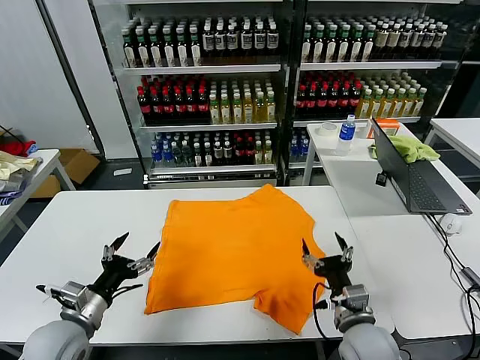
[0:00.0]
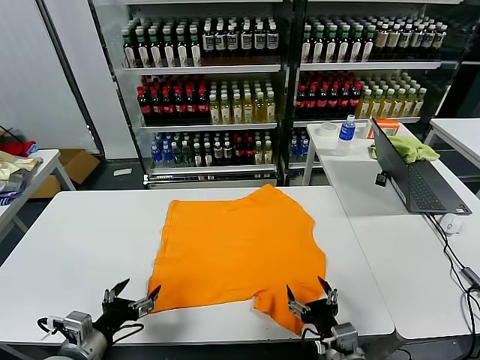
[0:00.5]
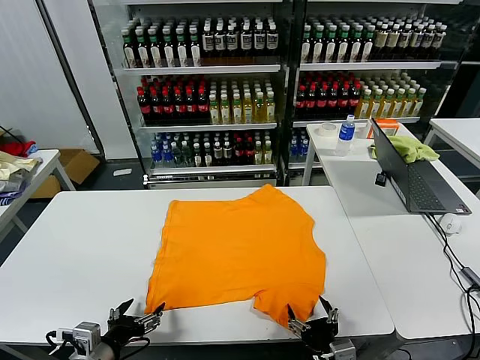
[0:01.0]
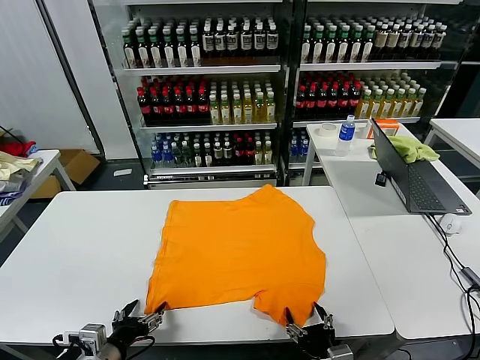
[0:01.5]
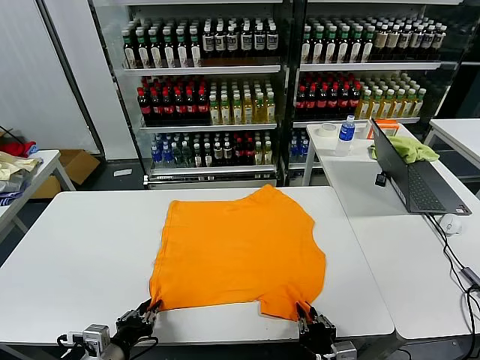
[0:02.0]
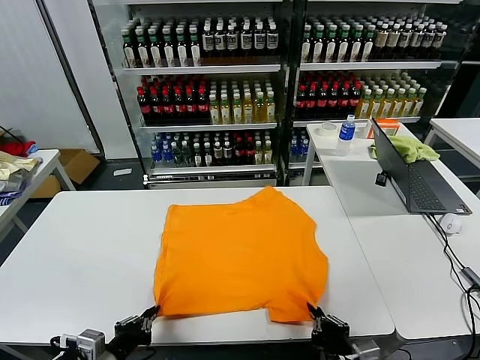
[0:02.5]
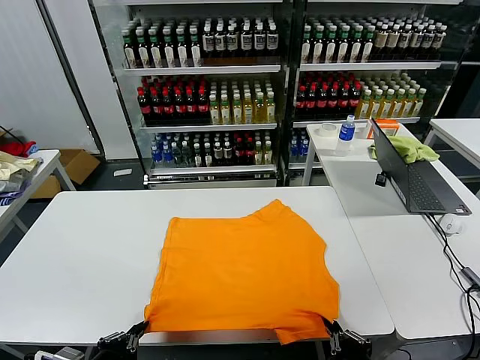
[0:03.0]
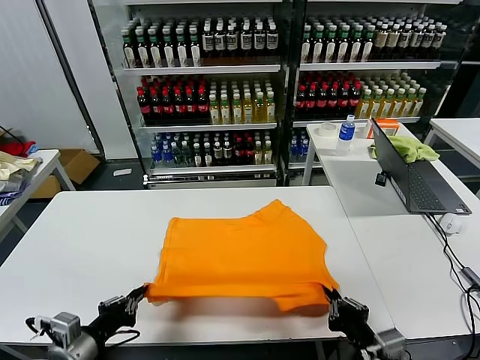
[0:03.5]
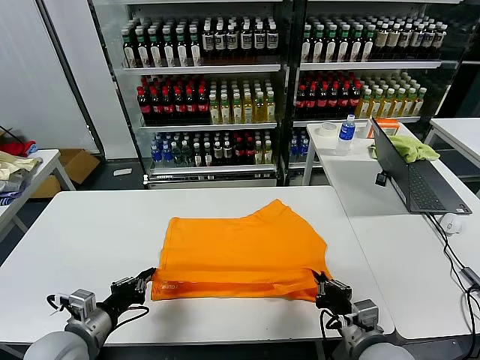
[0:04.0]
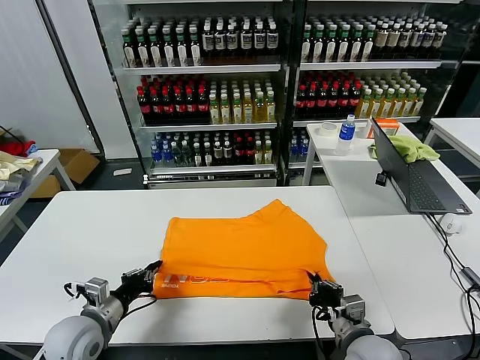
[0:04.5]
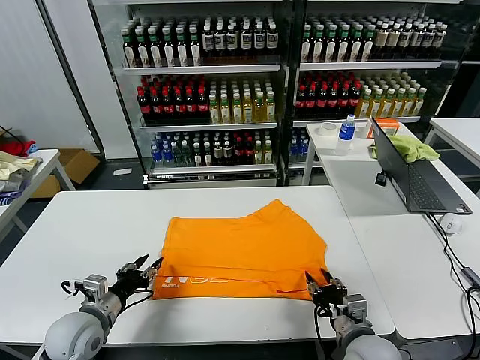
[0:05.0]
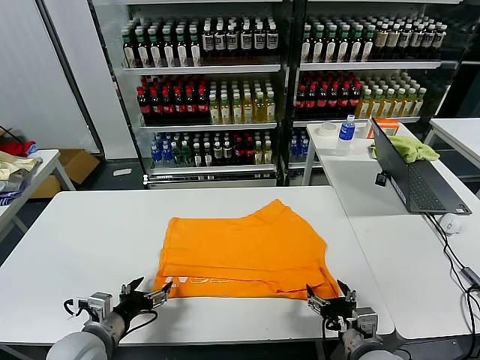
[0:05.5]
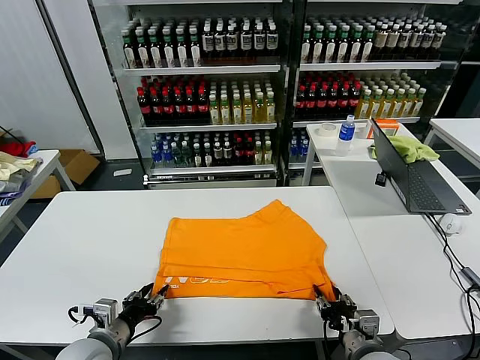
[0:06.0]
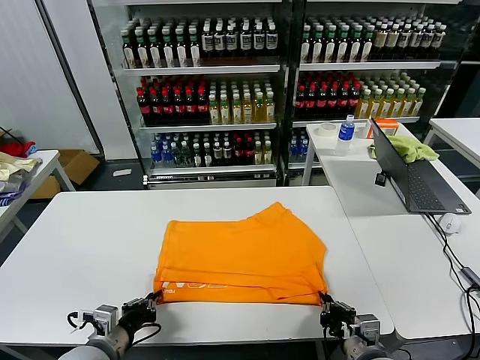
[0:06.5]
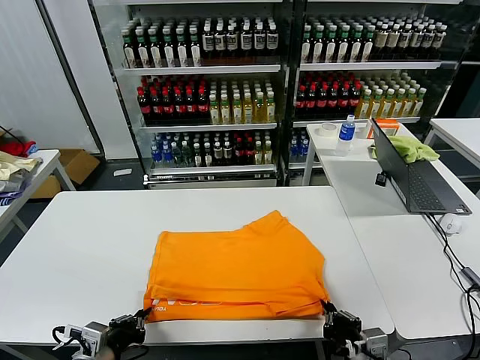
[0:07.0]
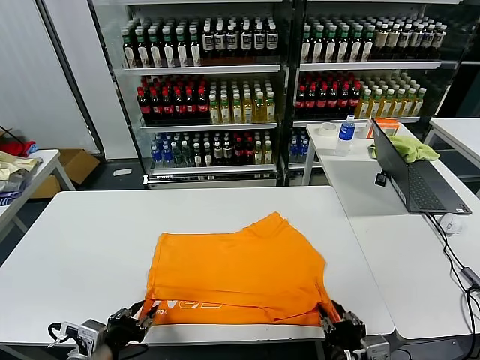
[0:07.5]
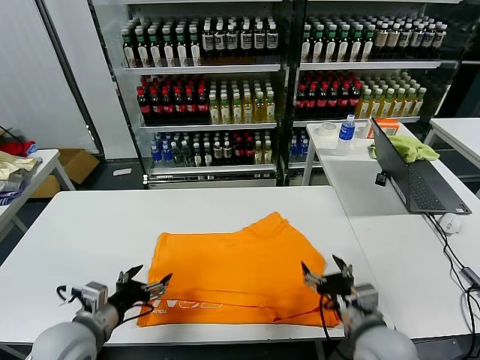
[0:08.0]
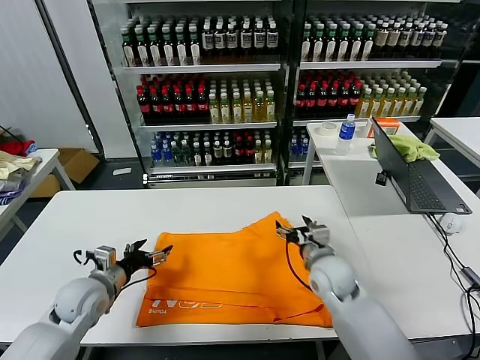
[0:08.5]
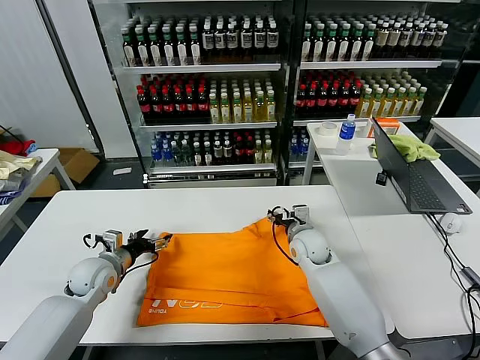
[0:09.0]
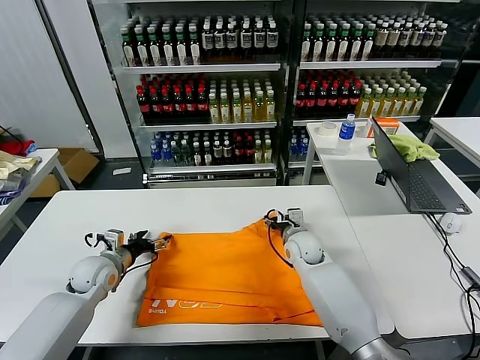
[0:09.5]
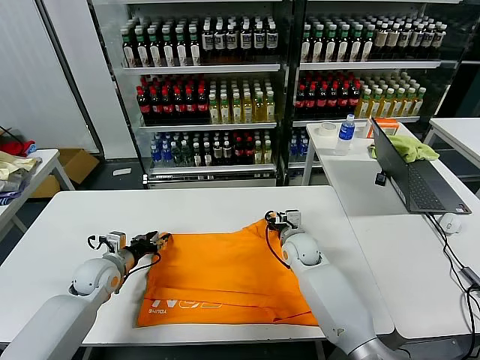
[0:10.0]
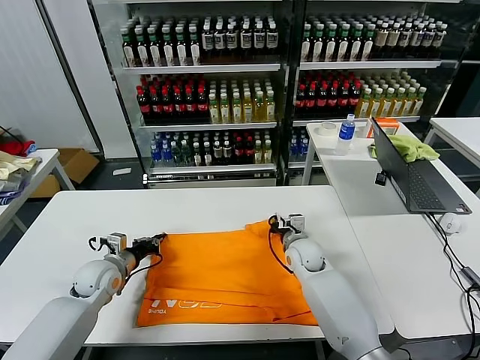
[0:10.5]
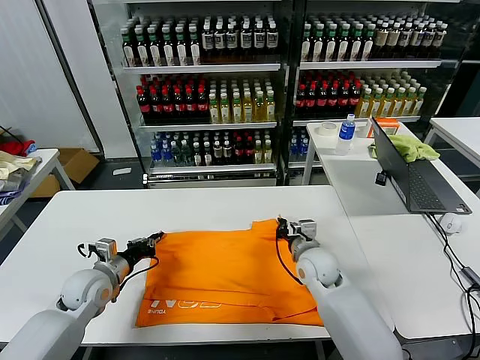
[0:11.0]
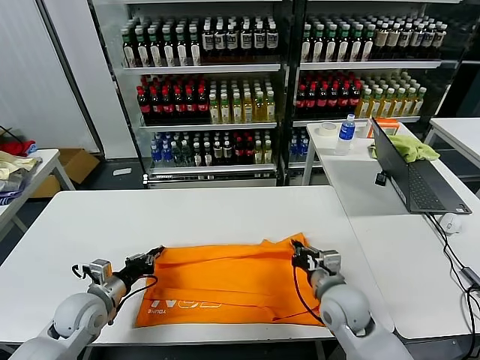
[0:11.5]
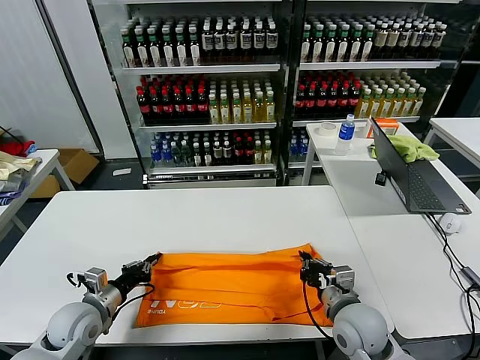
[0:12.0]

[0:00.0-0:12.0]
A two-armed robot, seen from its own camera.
Task of the whole recording: fold and organize the clothes.
Step, 0:00.0 to 0:02.0: use both grippers simultaneously to clamp the lower edge of the clothing fabric.
Step, 0:02.5 to 0:04.5: use both grippers to drag the lower edge of the fabric forward and fold it over the upper edge.
Step, 0:05.5 to 0:07.5: Drag the clothes downward with both gripper.
Step, 0:08.0 to 0:10.0: use both grippers simultaneously to clamp the upper edge of the clothing fabric.
0:02.0 to 0:04.0: The left gripper is displaced forward by roughly 5 cm. The right gripper travels forward and upward by some 10 cm.
0:04.0 to 0:06.0: The right gripper opens. Meanwhile the left gripper opens up.
0:06.0 to 0:08.0: Both grippers travel together upward, approximately 5 cm. The right gripper goes backward and returns, approximately 5 cm each way, and opens its fingers; the left gripper opens its fingers.
0:08.0 to 0:10.0: The right gripper shifts roughly 25 cm forward, and closes; the left gripper moves forward, roughly 20 cm, and closes.
0:10.0 to 0:12.0: The left gripper is displaced backward by approximately 10 cm, and closes its fingers; the right gripper is displaced backward by roughly 20 cm, and closes up.

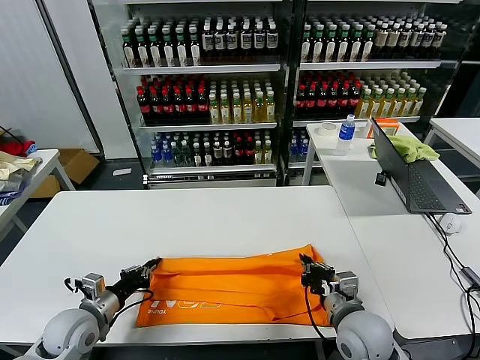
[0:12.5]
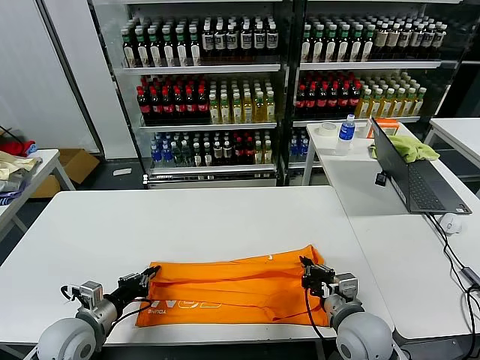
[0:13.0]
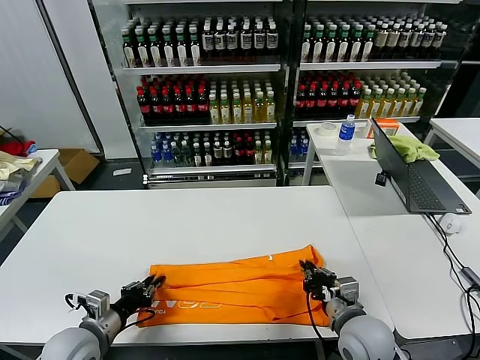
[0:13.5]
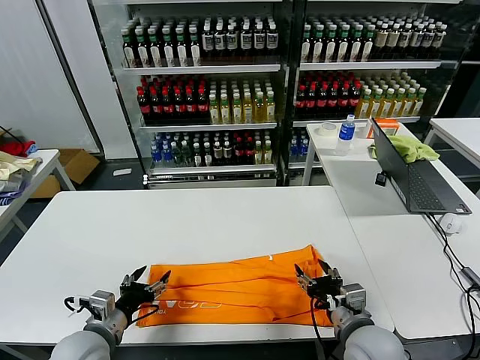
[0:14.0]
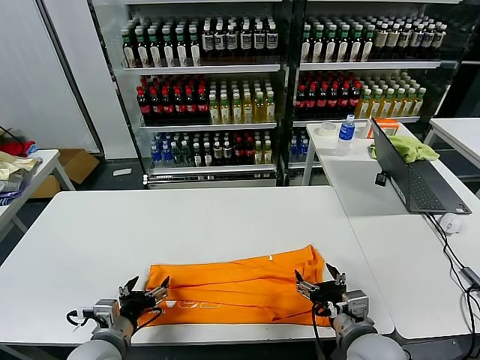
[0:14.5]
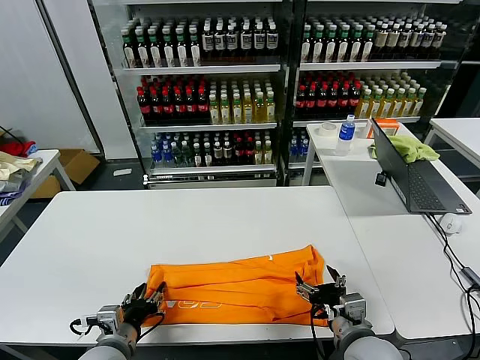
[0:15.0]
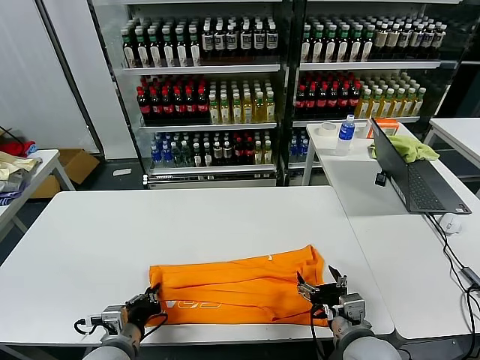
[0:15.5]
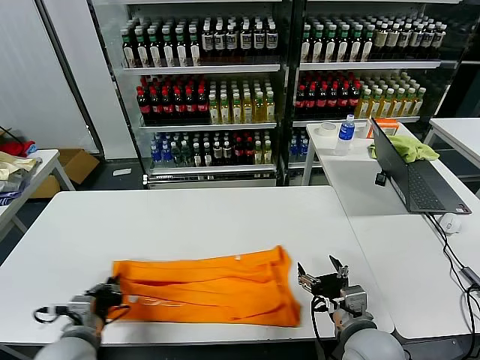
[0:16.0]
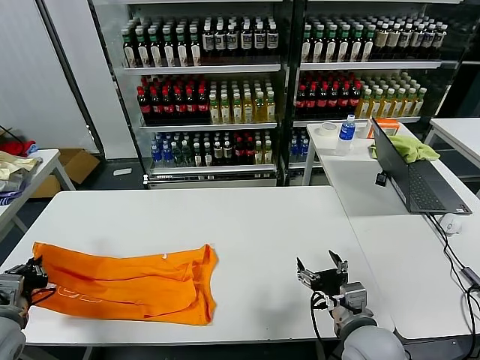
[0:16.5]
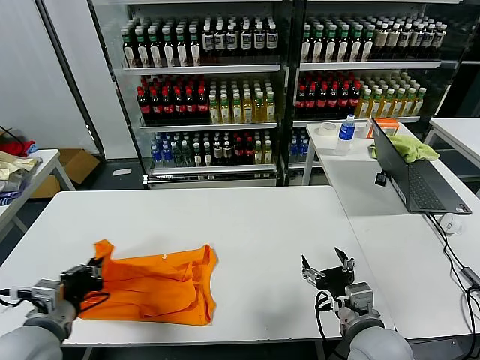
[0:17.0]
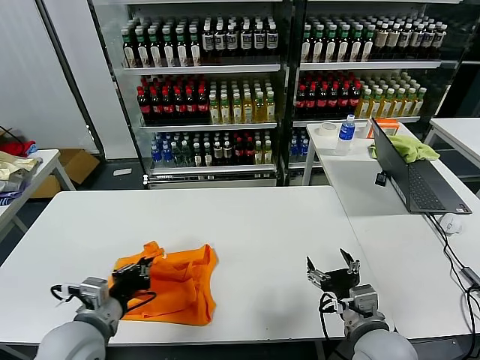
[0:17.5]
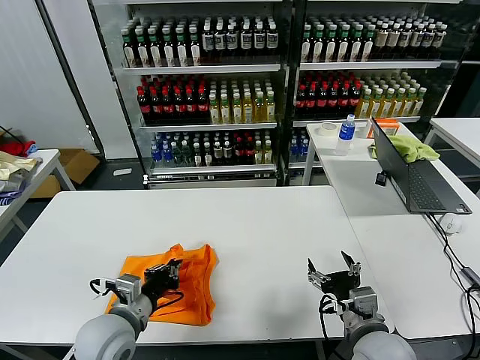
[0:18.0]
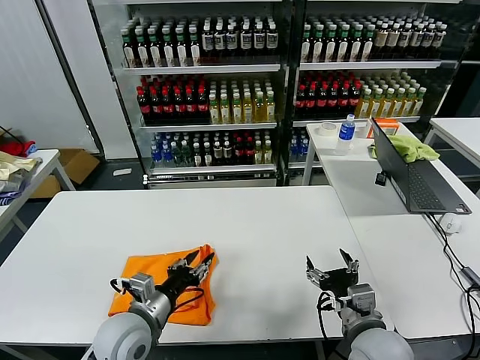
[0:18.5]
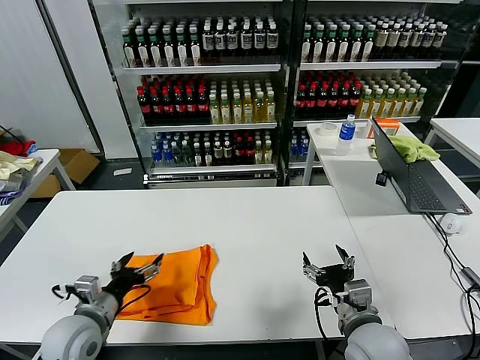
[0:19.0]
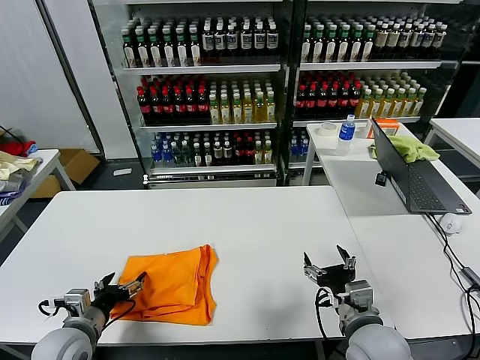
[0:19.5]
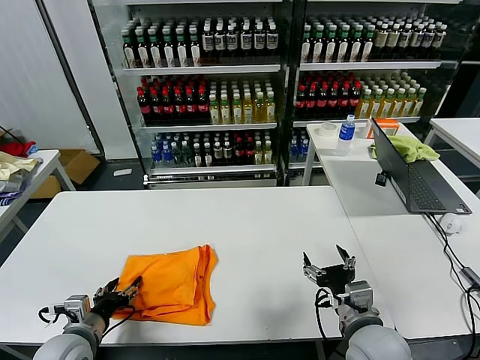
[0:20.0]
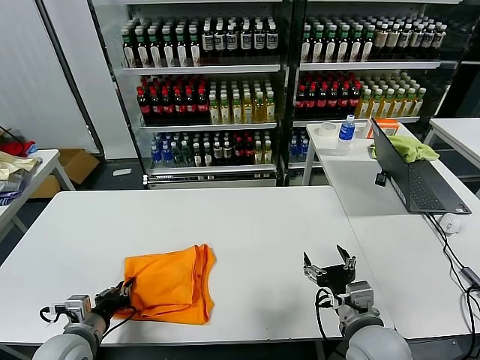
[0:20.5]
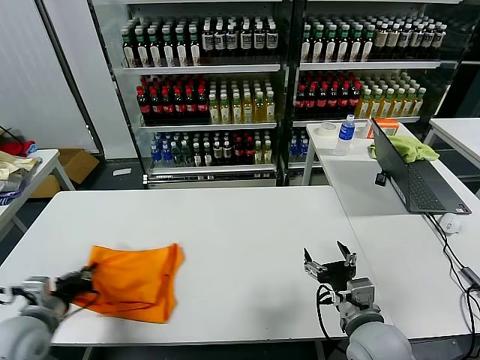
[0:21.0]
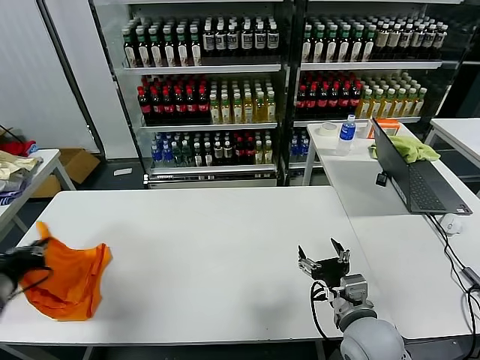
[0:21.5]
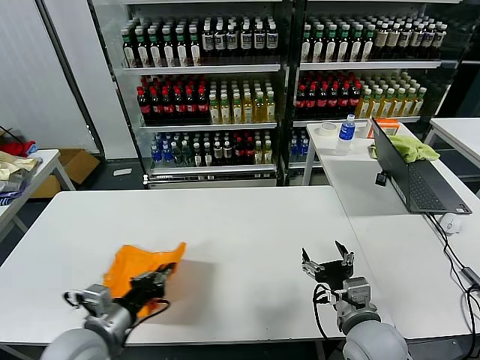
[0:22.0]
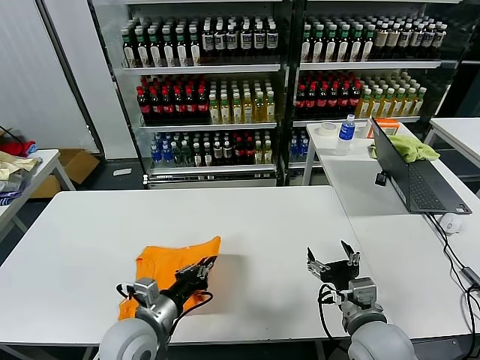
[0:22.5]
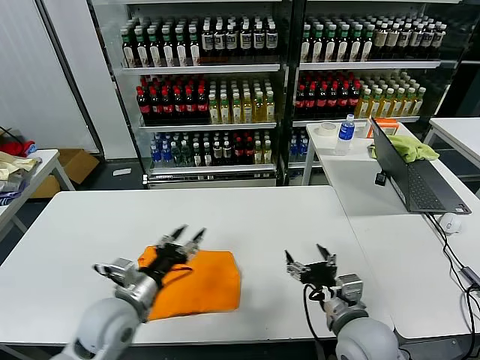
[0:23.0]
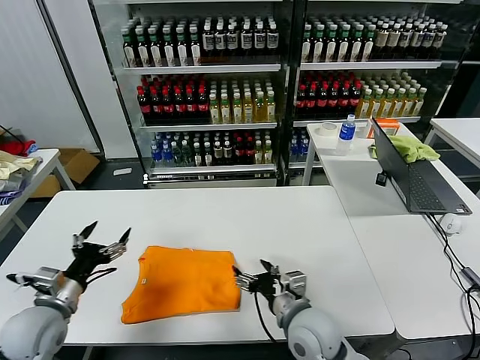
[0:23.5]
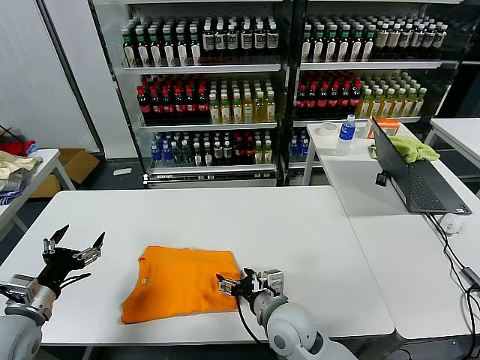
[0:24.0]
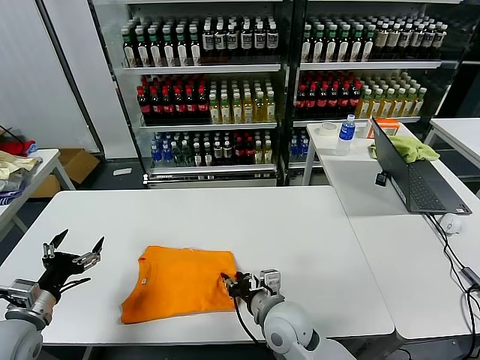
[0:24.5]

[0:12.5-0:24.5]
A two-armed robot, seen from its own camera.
Task of the whole recording: fold and organize the clothes.
Step, 0:14.0 to 0:15.5: use the left gripper to clamp the left edge of the fabric.
Step, 0:16.0 to 0:18.0: use the left gripper to drag the left edge of the fabric to the left and folds it over the right edge.
Step, 0:18.5 to 0:22.5: Flip the folded clothes over with left gripper.
0:12.5 to 0:14.5: The left gripper goes approximately 10 cm to the right and backward, and opens its fingers. Meanwhile the right gripper opens up.
0:14.5 to 0:16.5: The left gripper goes about 20 cm to the left and upward, and closes up.
0:16.5 to 0:18.5: The left gripper shifts approximately 20 cm to the right, and opens its fingers.
0:18.5 to 0:20.5: The left gripper goes about 15 cm to the left, and opens, then closes once more.
0:20.5 to 0:22.5: The left gripper travels to the right by roughly 15 cm.
0:22.5 to 0:24.5: The right gripper travels to the left and forward by roughly 15 cm, and closes its fingers. Meanwhile the left gripper goes roughly 20 cm to the left, and opens its fingers.

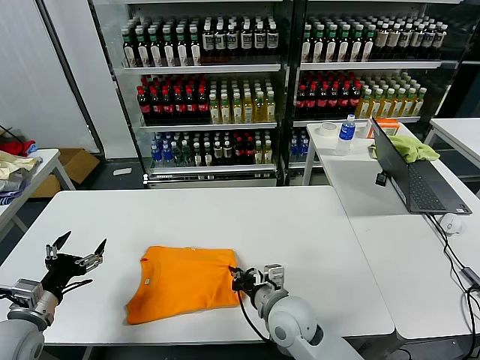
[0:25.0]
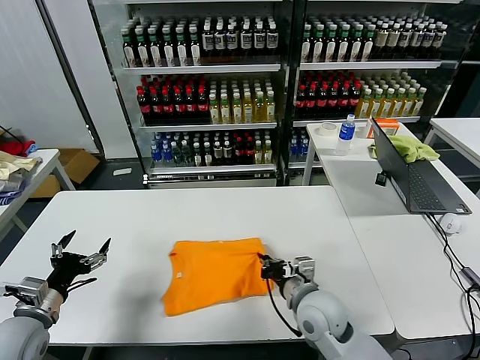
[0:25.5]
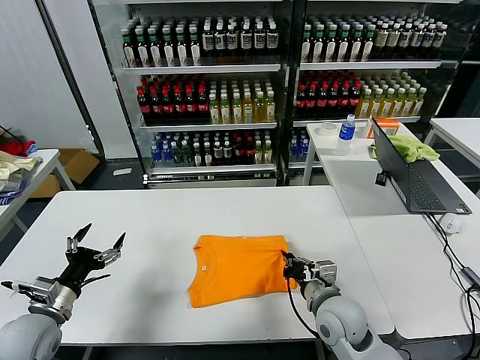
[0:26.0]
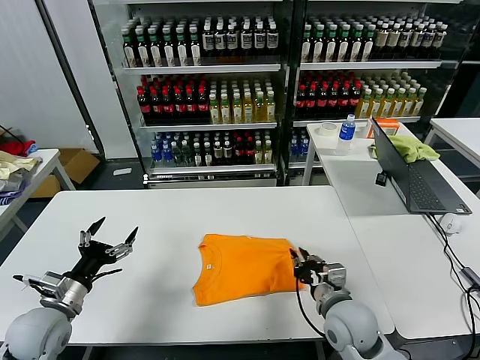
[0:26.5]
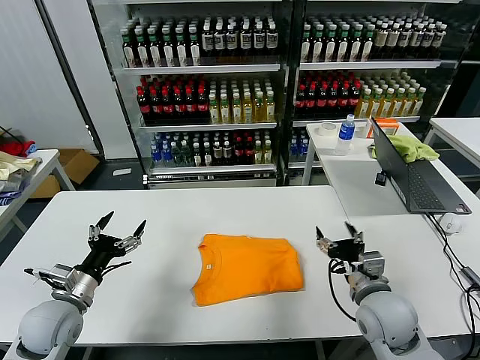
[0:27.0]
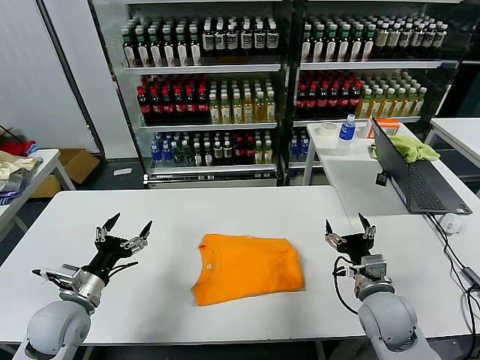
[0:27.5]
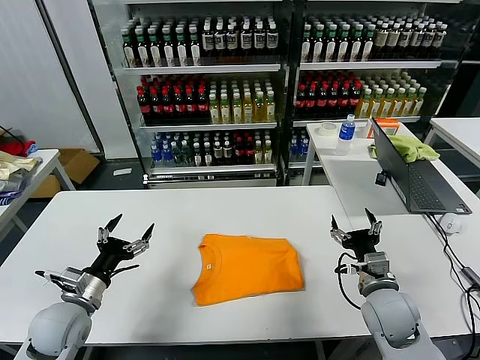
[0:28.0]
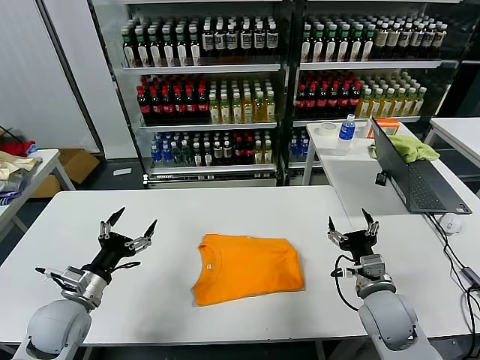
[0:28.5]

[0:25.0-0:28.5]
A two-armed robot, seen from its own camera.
Task of the whole recording: fold and organize the clothes.
0:25.0 to 0:27.0: The right gripper goes some 15 cm to the right, and opens; the left gripper shifts about 5 cm to the right.
0:27.0 to 0:28.5: The grippers stay close to where they were, moving slightly.
